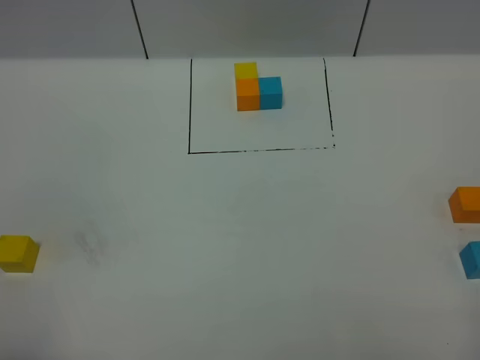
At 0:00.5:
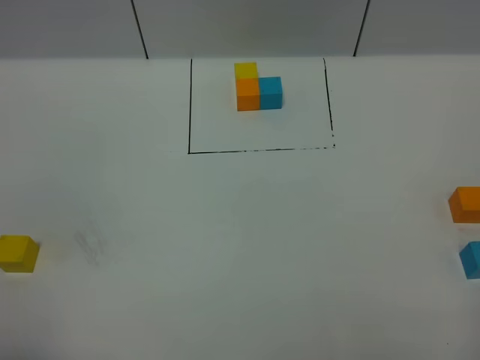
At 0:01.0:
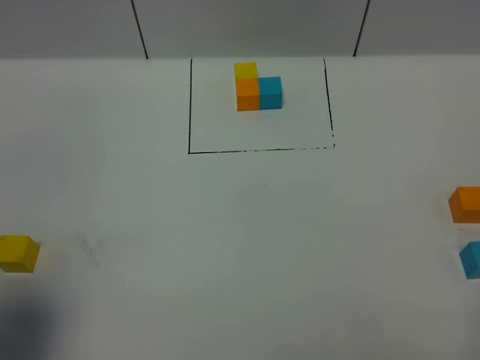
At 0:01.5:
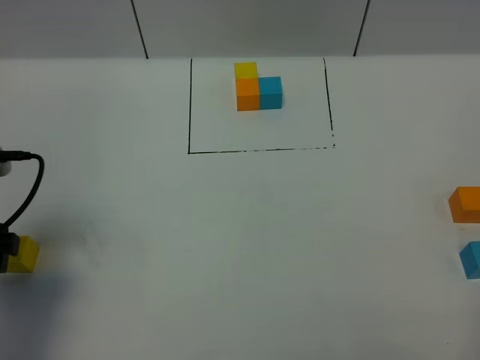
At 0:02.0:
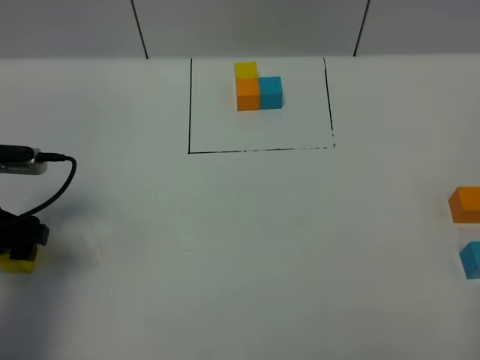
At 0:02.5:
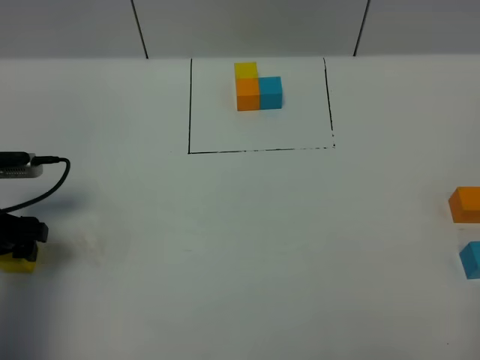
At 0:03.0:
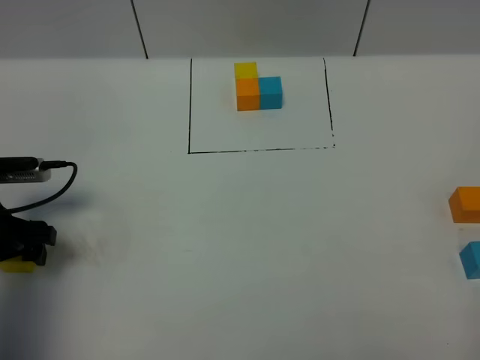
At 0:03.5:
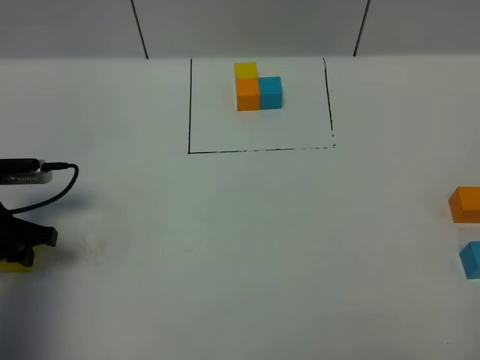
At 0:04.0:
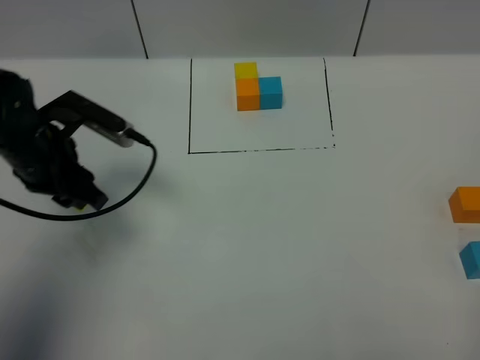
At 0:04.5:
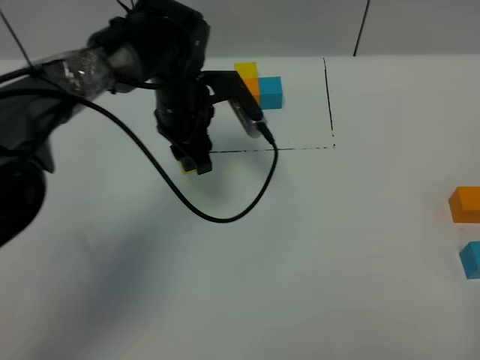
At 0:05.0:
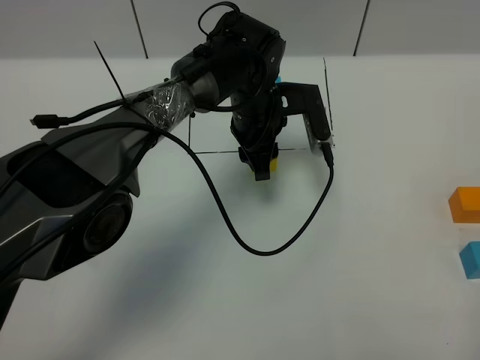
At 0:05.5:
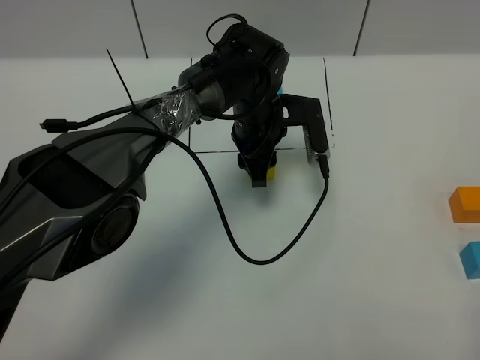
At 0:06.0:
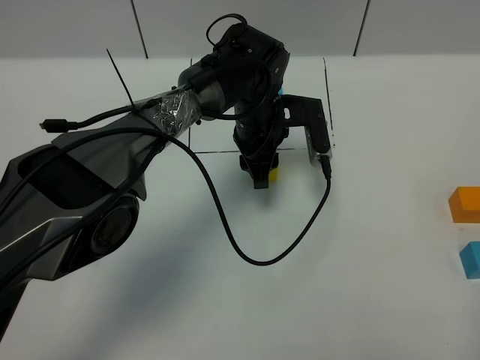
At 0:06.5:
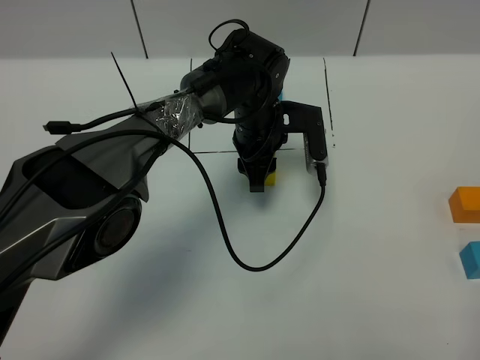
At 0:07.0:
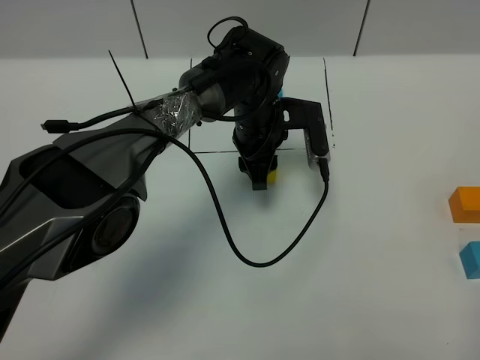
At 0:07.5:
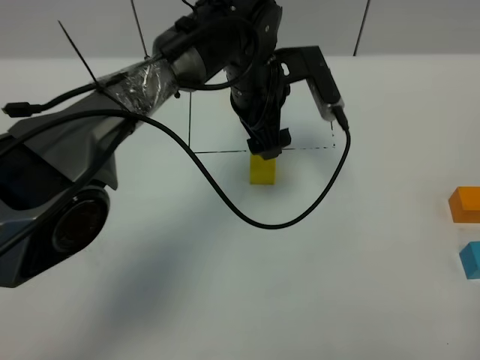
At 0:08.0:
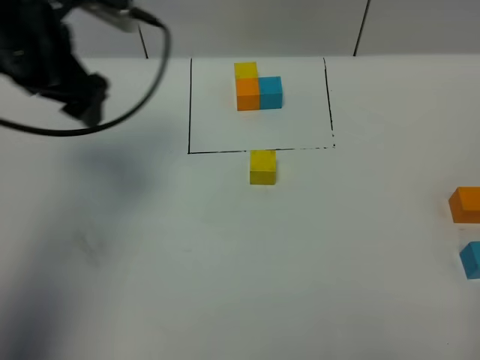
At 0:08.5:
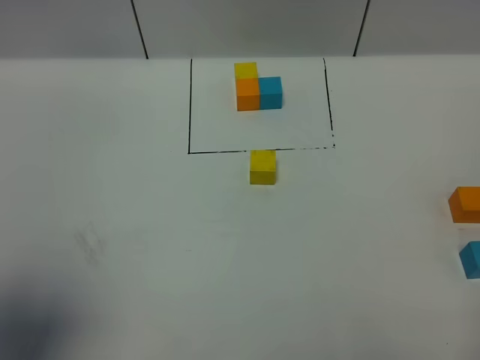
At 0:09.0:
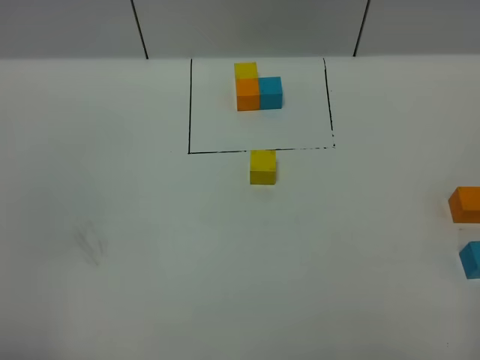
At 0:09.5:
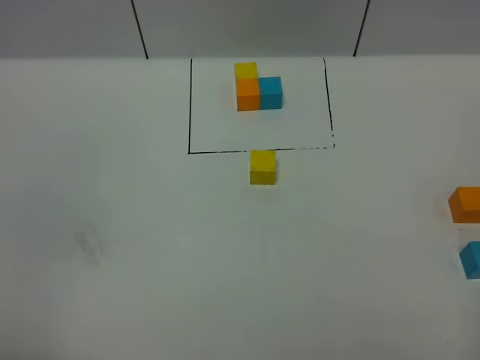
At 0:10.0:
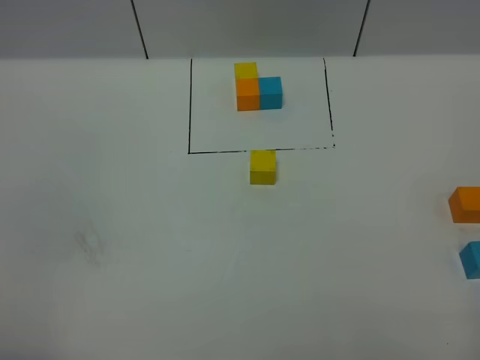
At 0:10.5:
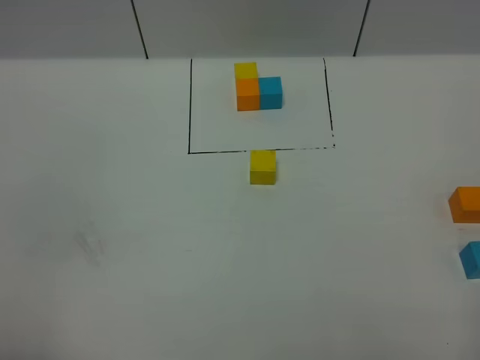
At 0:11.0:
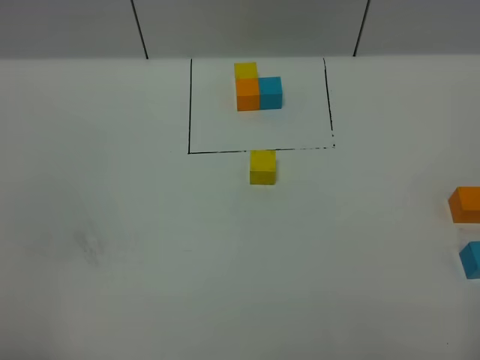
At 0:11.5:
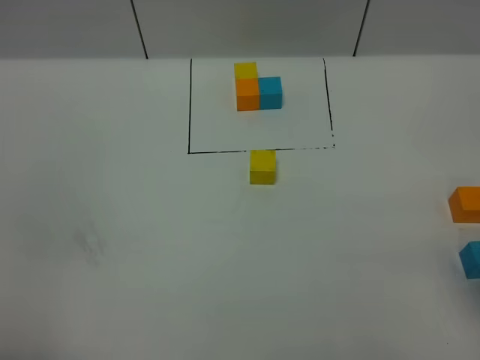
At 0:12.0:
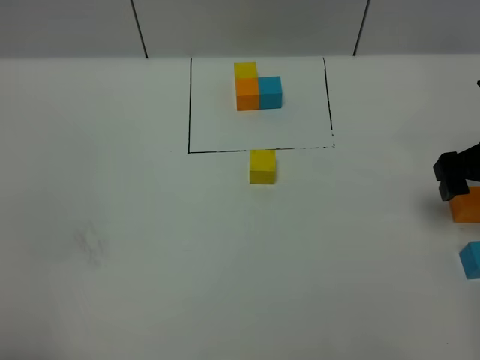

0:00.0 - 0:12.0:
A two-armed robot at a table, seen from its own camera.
Task of the whole recording: According to the building block template in front, assemble the scattered blocks together.
Step, 0:00.0 - 0:07.0: Put the yellow build block in the center of the table.
0:00.0 - 0:02.0: The left gripper goes about 25 cm forward and downward.
0:02.0 - 0:04.0: The left gripper shifts approximately 10 cm forward and to the right, and closes.
0:04.0 - 0:06.0: The left gripper shifts roughly 25 cm to the right.
0:06.0 - 0:08.0: The left gripper shifts some 30 cm to the left and upward, and opens up.
0:08.0 - 0:10.0: The left gripper travels backward by roughly 35 cm, and closes.
0:10.0 - 0:12.0: The right gripper moves forward, about 30 cm.

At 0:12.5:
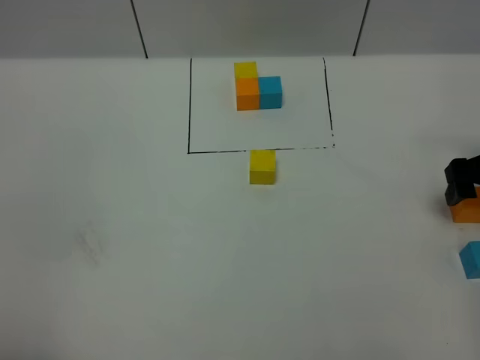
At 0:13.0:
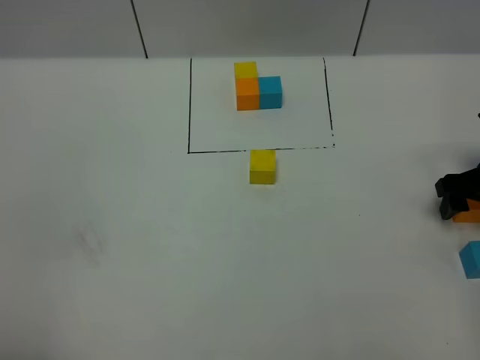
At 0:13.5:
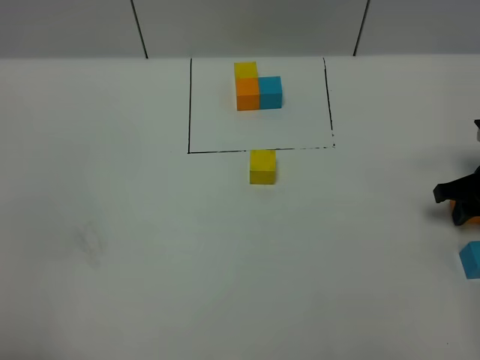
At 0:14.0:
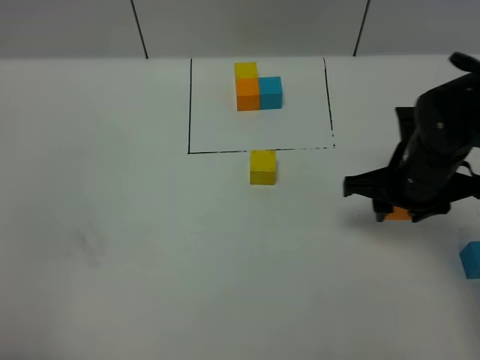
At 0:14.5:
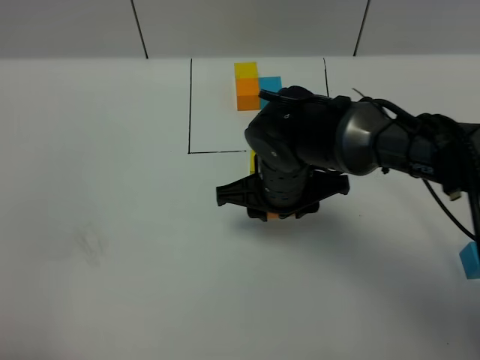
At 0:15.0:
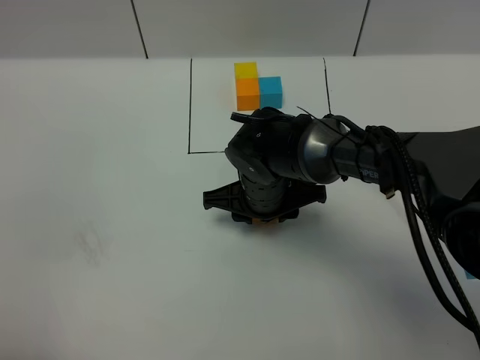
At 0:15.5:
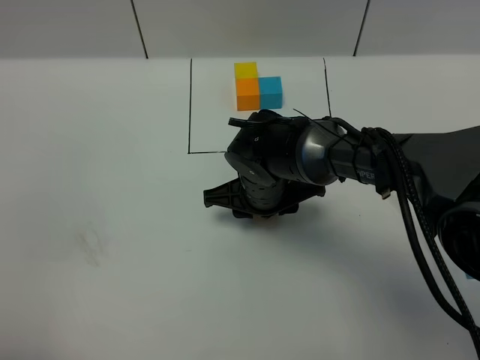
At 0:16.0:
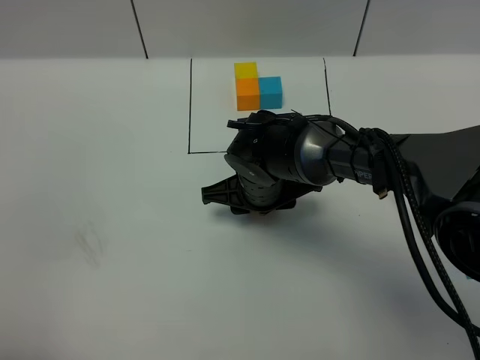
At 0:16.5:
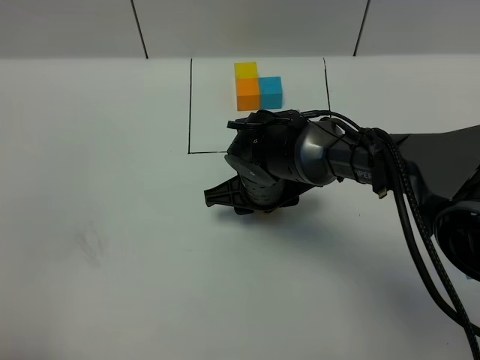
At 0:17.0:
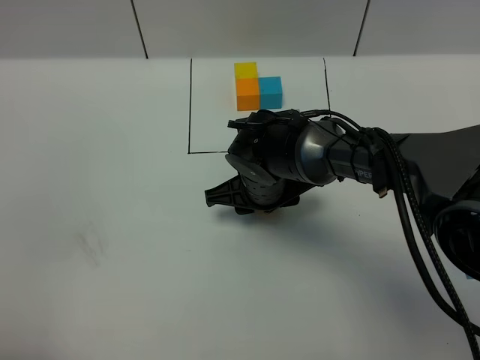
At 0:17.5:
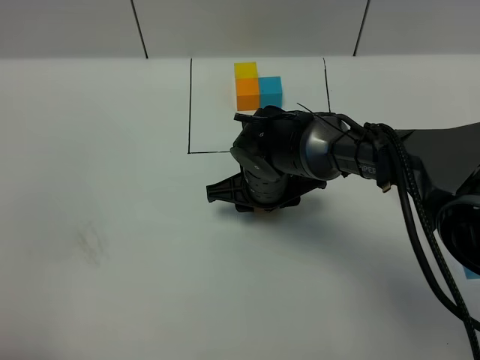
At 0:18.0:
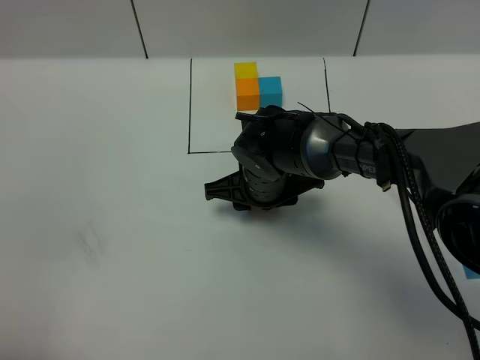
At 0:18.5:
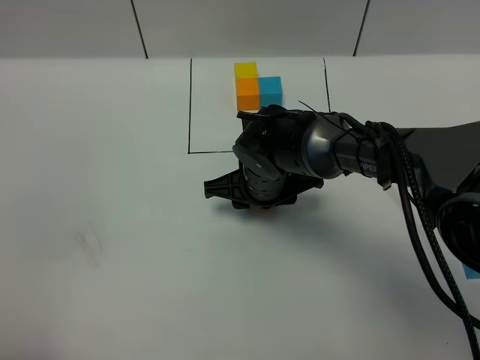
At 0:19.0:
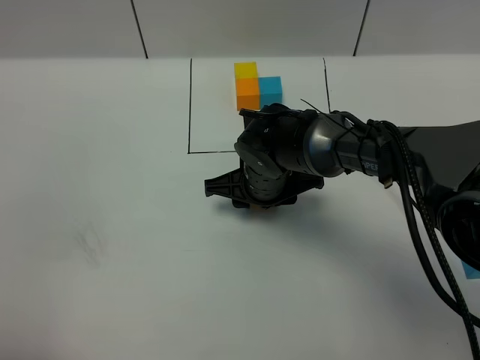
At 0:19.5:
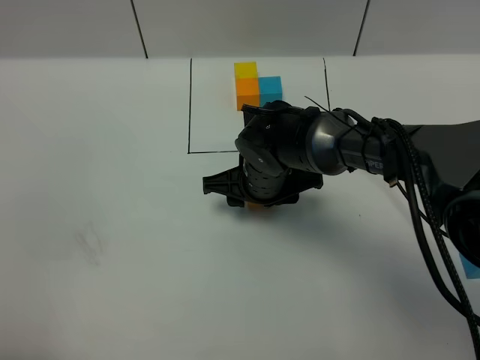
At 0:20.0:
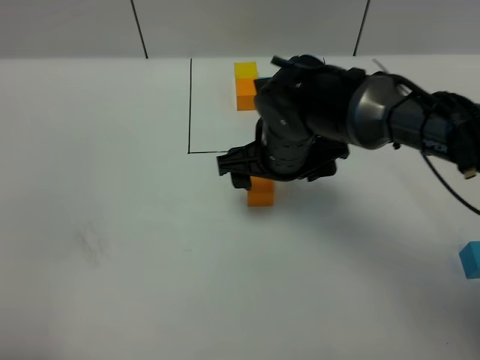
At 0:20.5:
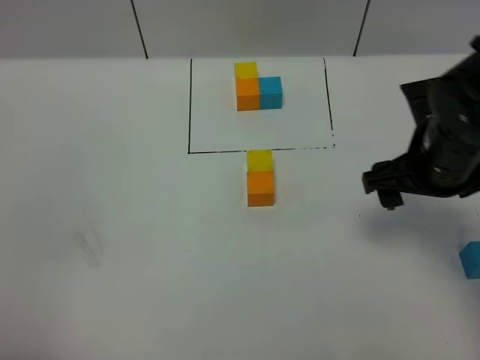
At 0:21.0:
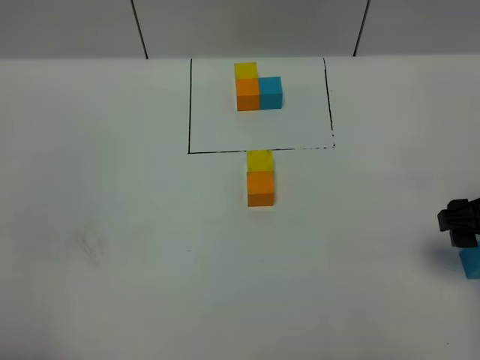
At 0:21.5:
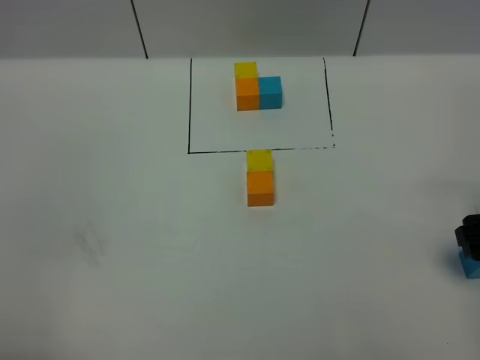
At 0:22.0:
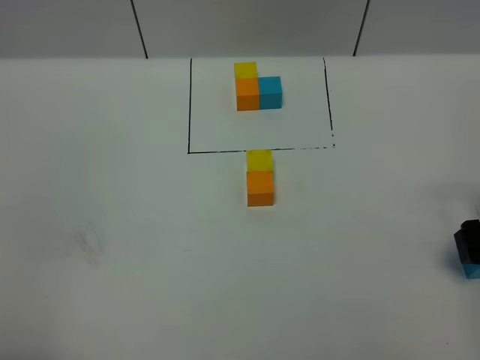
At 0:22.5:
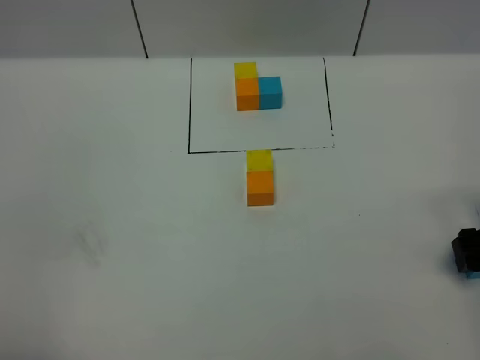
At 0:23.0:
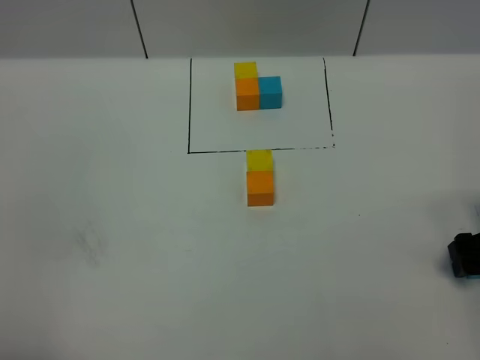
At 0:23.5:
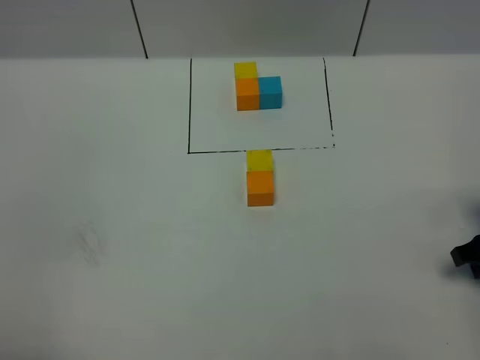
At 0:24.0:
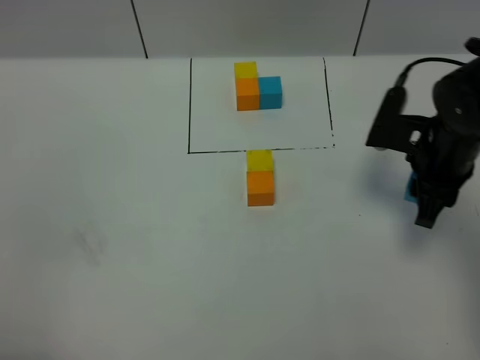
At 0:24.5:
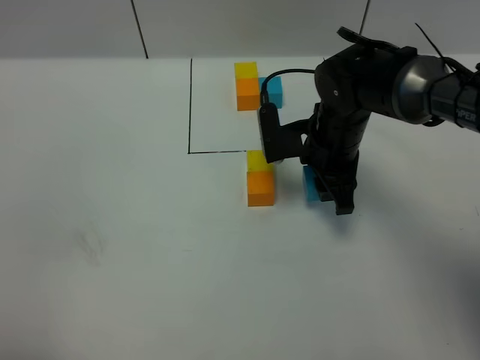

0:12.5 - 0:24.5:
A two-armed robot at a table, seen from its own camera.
Task of the whole recording: According to the building block template in front, assemble the scattered blocks together.
Step, 0:12.5 - 0:19.5: Put the orange build block on the behind of the yellow build block.
0:12.5 - 0:14.5: The right gripper heads to the left, covering approximately 30 cm, and closes its fingers.
0:14.5 - 0:16.5: The right gripper ends up approximately 5 cm from where it was.
0:16.5 - 0:18.5: The grippers make only small movements.
0:18.5 - 0:20.5: The right gripper shifts approximately 20 cm to the right and upward, and opens its fingers.
0:20.5 - 0:22.5: The right gripper heads to the right and downward, covering about 15 cm.
0:22.5 - 0:24.5: The right gripper moves to the left and forward, roughly 25 cm, and closes its fingers.

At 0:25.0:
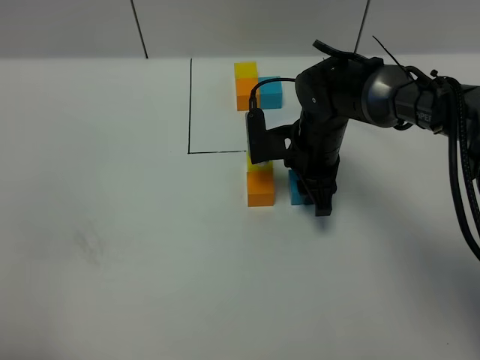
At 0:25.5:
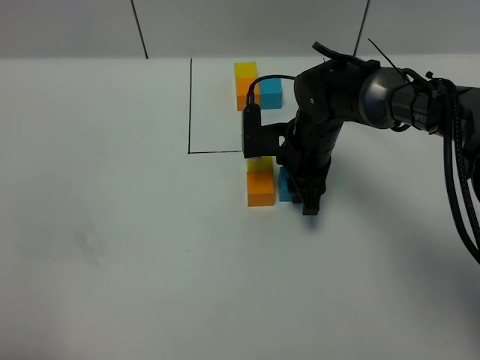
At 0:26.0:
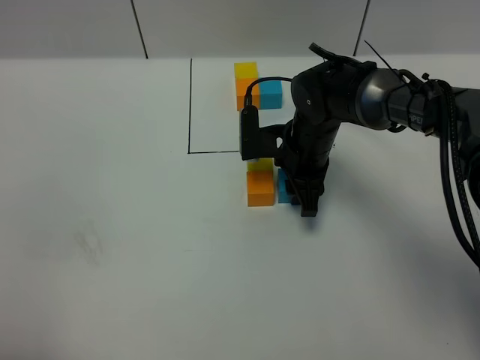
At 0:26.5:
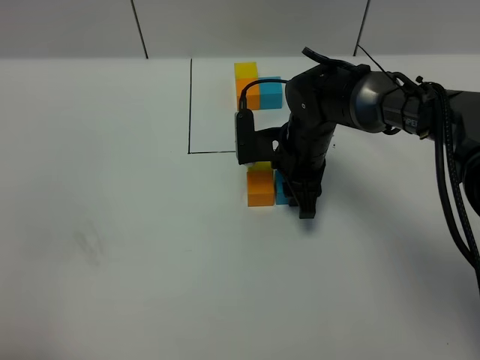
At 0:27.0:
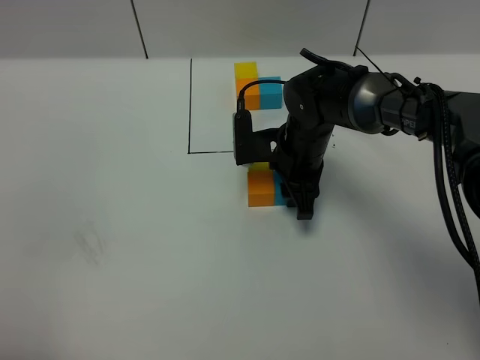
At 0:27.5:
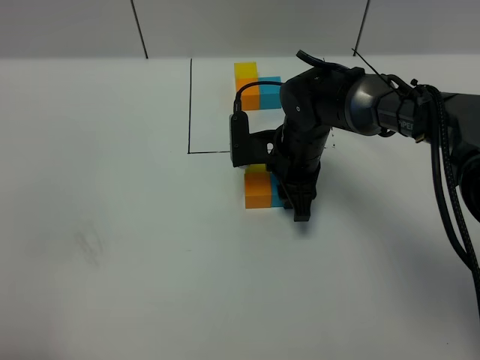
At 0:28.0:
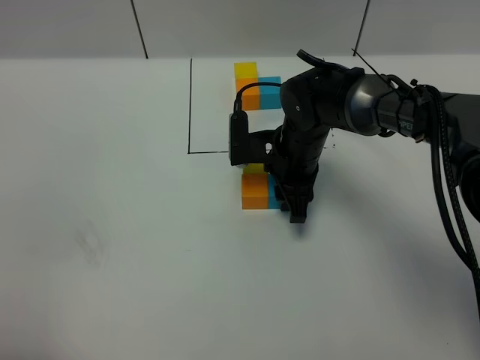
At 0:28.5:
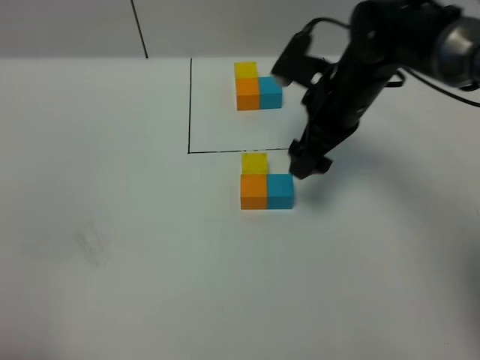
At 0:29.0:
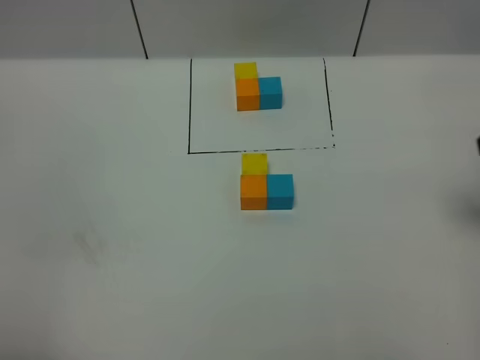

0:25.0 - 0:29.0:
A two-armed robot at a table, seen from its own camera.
Task of the whole recording: According to the building block template in front, assemble the scattered blocks together.
Step, 0:25.0 - 0:28.0: Put the blue build block on the right of the orange build block.
0:25.0 - 0:27.0: The grippers move only a little.
0:27.0 - 0:29.0: The right gripper heads to the right, upward and backward, covering about 35 cm, and opens its fingers.
